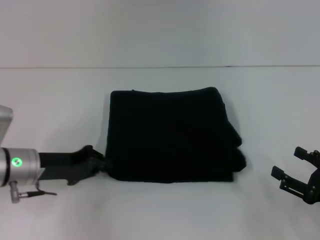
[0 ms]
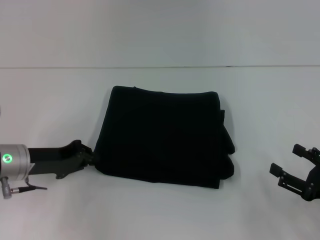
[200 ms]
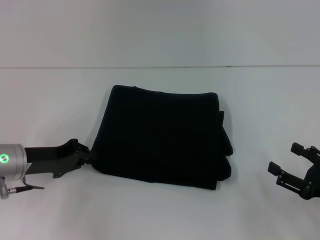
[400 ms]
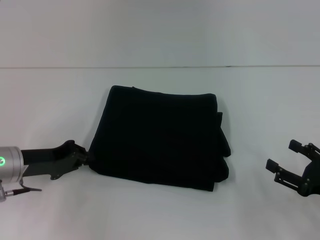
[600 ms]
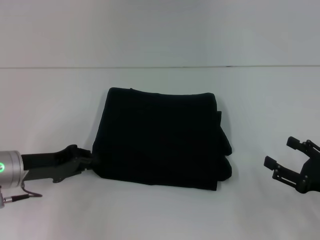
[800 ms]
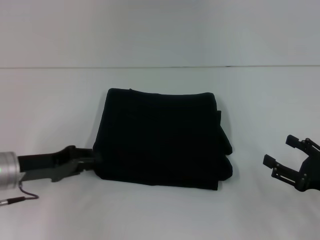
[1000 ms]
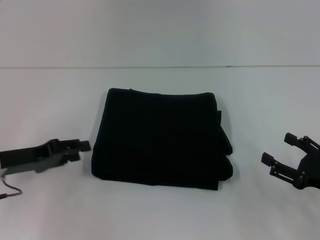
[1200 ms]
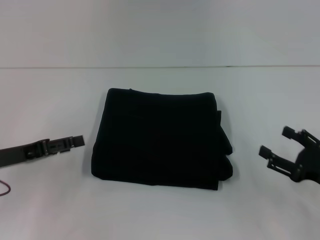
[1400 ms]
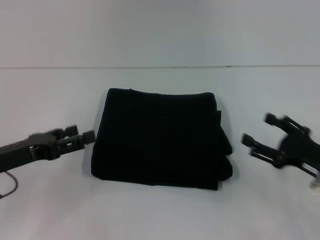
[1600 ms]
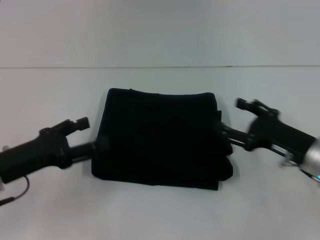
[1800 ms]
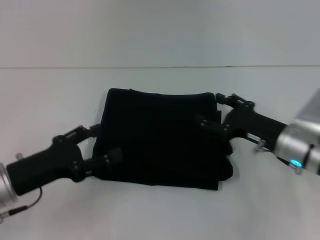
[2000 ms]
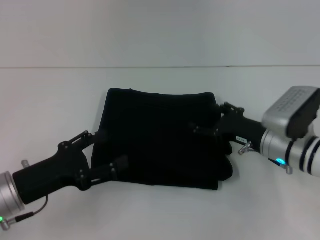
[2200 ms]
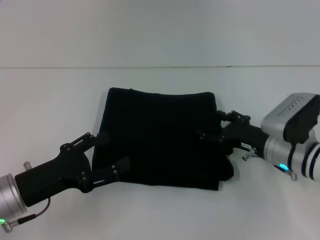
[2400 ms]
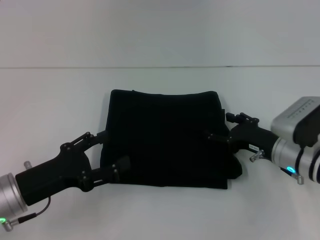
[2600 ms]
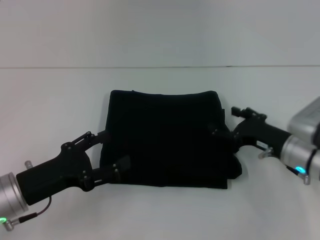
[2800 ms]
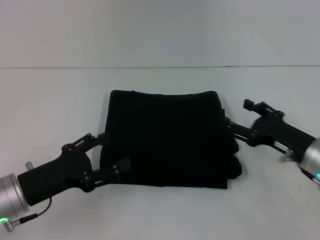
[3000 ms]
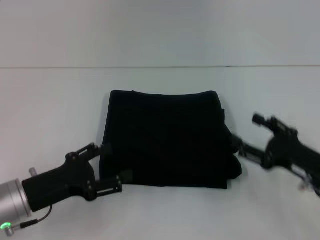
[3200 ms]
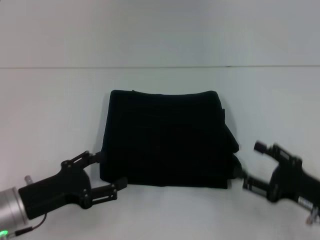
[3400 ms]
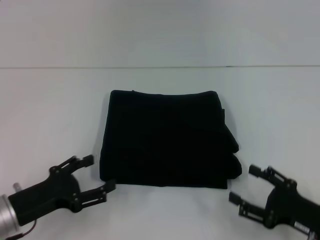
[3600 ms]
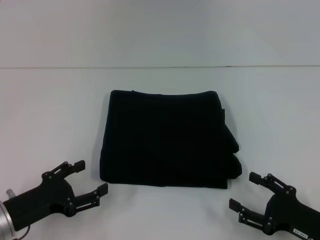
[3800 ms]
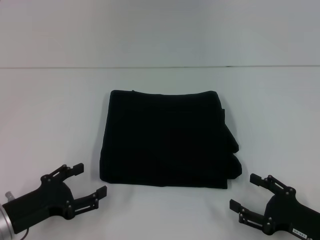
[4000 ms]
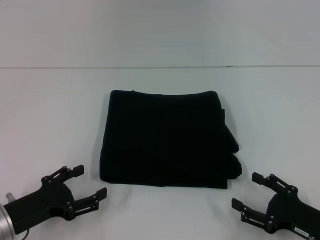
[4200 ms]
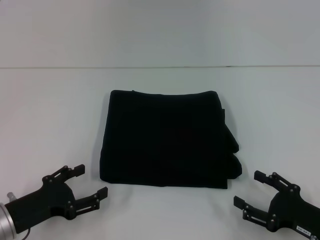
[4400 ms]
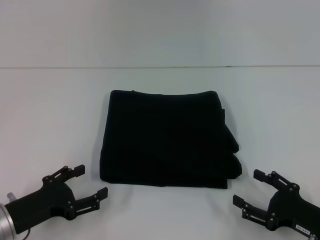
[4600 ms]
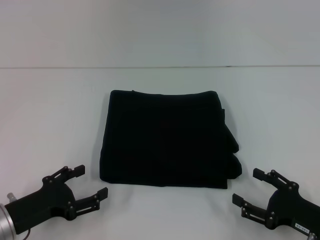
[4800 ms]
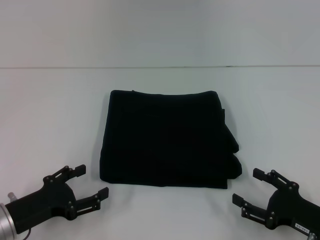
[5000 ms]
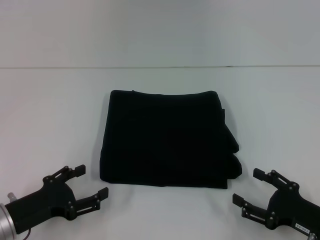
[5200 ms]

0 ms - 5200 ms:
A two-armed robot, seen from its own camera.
0 ms - 1800 ms: The right gripper is displaced forward and to the left by some 10 cm; the left gripper travels backward by roughly 5 cm, and opens up.
1800 ms - 3400 ms: The right gripper moves backward, some 5 cm; the left gripper shifts by approximately 5 cm.
3400 ms - 5200 ms: The grippers make only small movements.

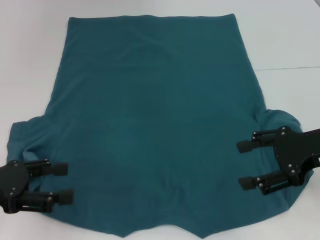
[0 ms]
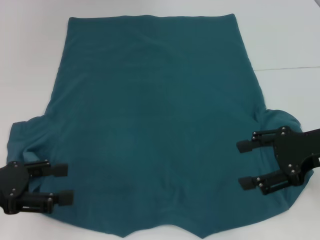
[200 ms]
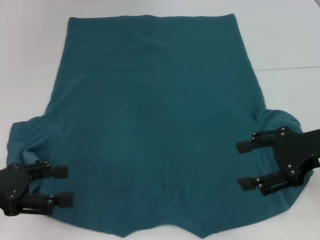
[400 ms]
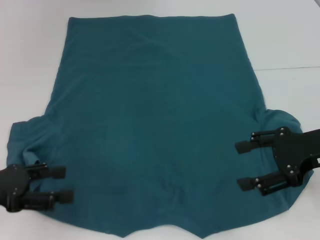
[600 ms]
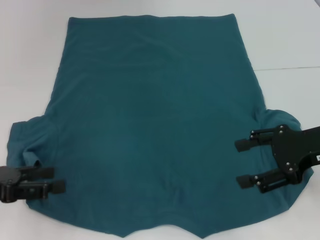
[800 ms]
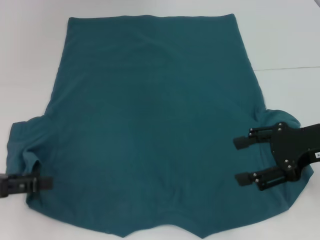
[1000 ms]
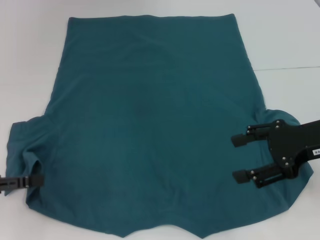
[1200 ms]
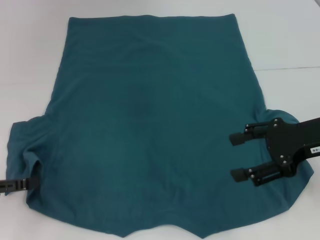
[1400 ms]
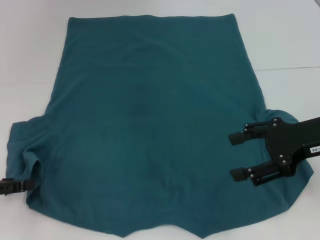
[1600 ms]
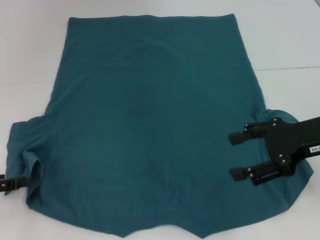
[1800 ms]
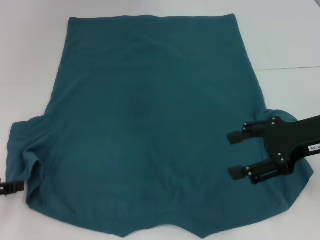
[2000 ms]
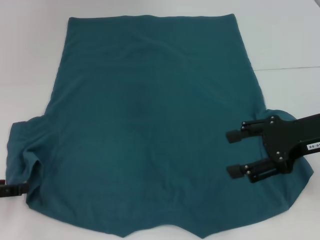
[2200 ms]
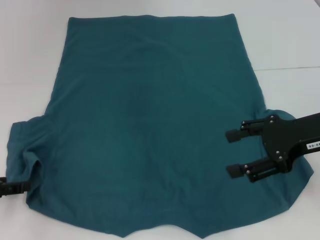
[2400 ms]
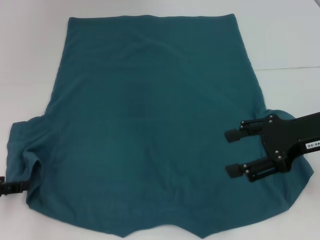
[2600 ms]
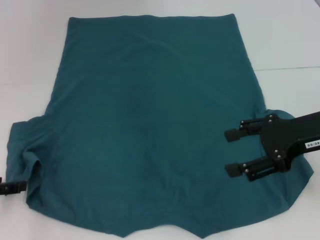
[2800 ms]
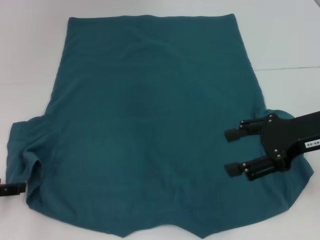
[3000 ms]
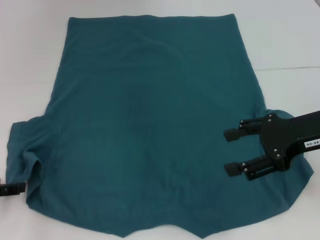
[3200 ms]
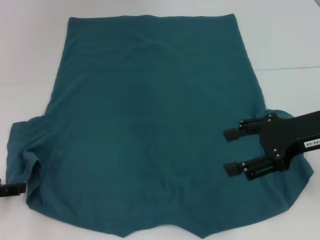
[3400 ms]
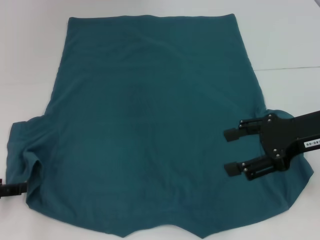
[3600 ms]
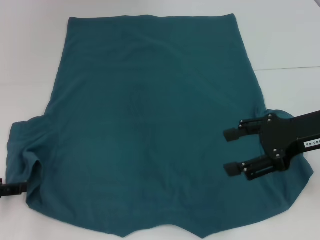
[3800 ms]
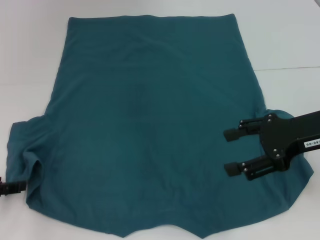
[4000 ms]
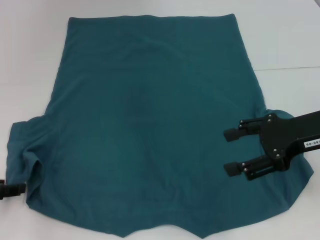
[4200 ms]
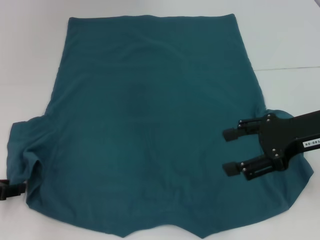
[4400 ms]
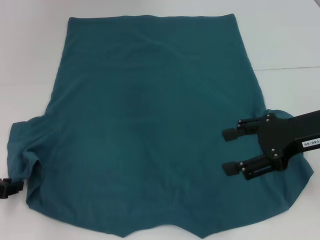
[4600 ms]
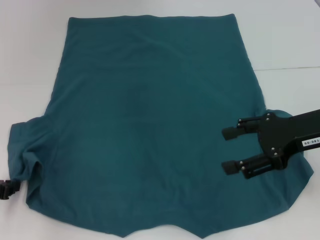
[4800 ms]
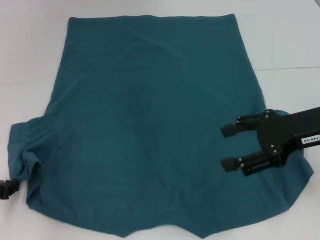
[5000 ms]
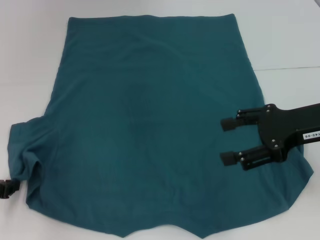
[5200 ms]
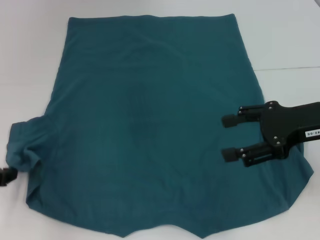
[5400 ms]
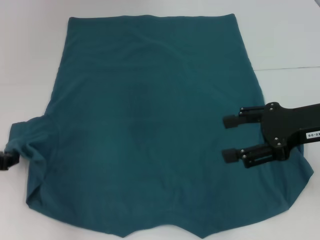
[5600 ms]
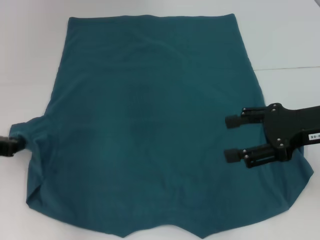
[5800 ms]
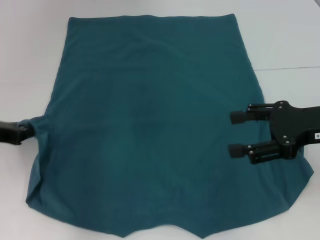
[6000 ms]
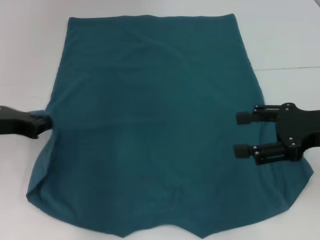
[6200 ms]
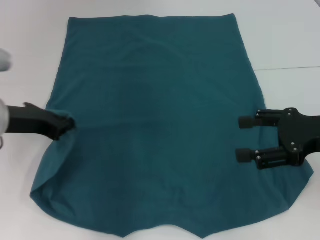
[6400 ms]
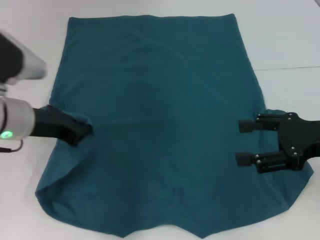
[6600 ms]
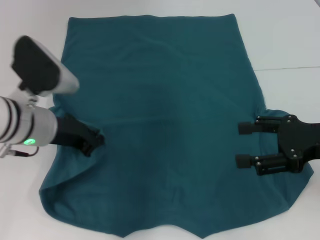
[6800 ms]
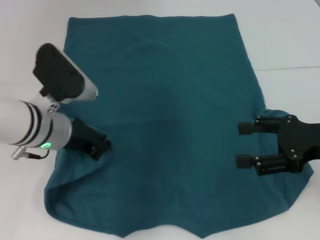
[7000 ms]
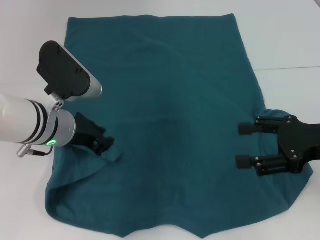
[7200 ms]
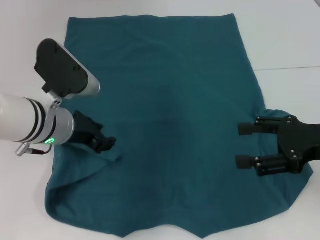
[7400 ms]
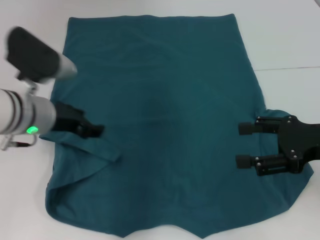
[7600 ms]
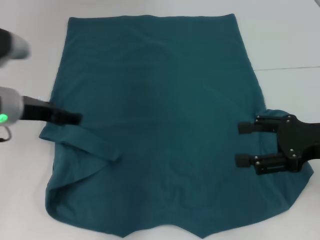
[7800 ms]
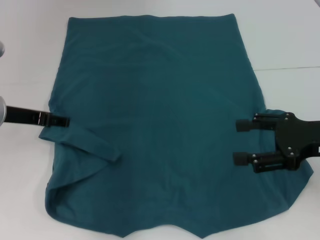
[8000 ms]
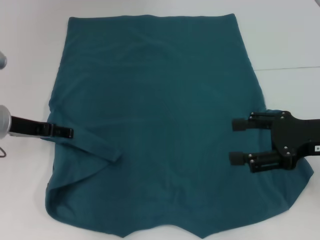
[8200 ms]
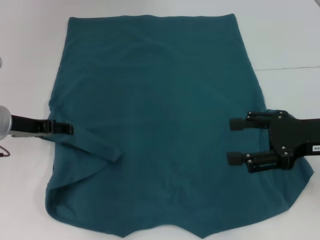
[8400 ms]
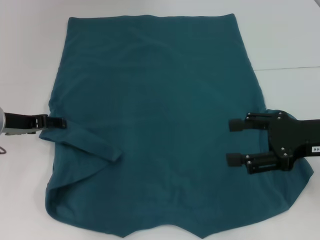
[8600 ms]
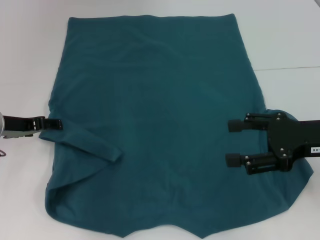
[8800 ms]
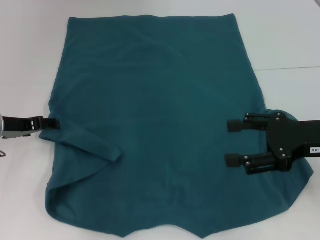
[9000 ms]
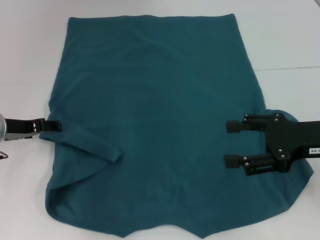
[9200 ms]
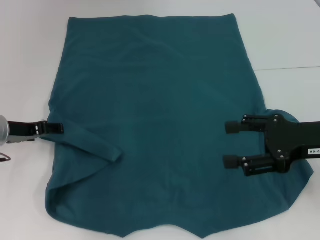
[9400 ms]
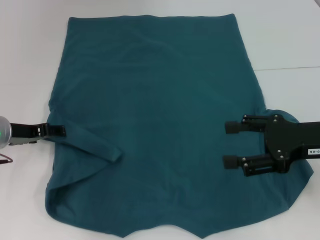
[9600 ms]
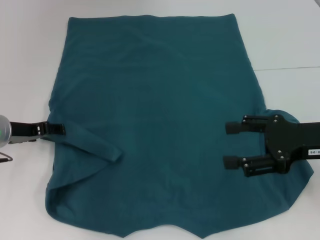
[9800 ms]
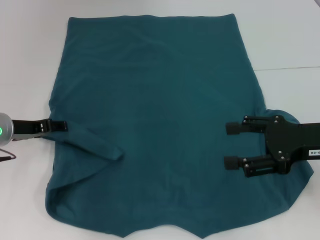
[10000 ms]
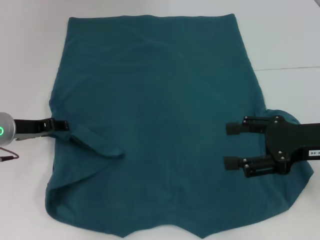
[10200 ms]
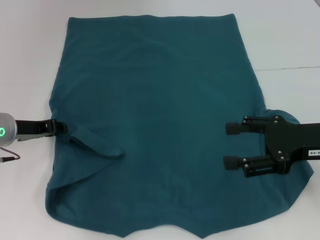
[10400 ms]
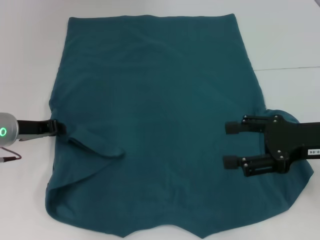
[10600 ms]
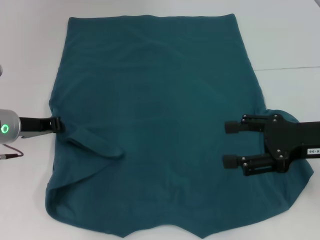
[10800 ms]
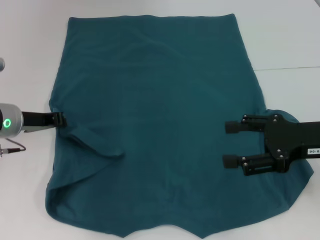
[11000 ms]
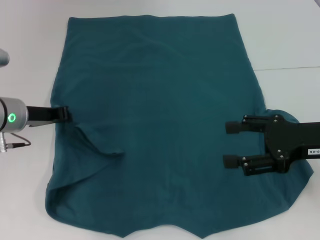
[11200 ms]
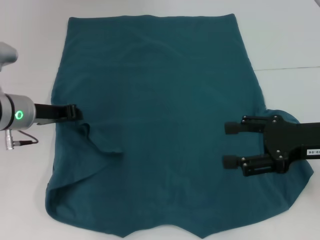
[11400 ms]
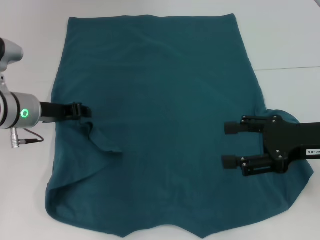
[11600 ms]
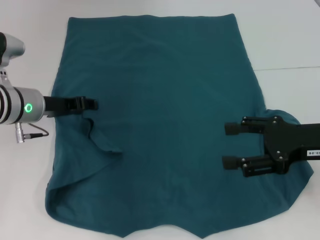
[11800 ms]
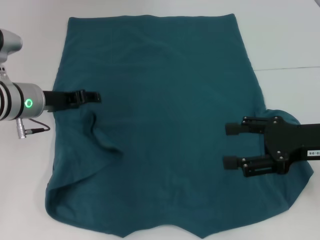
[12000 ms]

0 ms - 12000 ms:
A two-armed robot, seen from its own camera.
1600 ms - 3000 ms: The grippers stay close to where they were, moving slightly.
4400 ms - 6000 ms: The left gripper heads upward, covering some 5 cm, and closes up.
6000 ms - 7600 ms: The left gripper is displaced to the right by approximately 10 cm.
7600 ms - 9000 ms: The left gripper travels to the left by about 10 cm, and opens.
9000 ms - 10400 ms: The grippers move only a little.
10400 ms - 12000 ms: The left gripper ends up some 5 cm from where it was, and closes, then reopens.

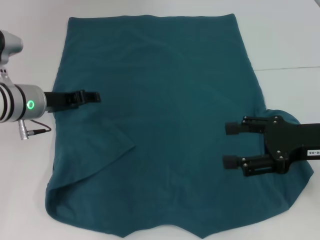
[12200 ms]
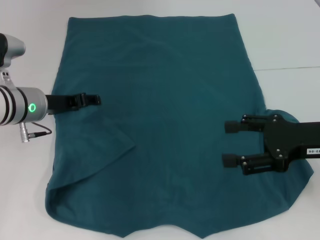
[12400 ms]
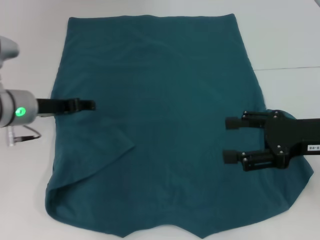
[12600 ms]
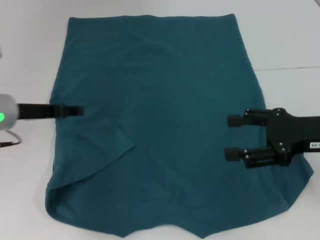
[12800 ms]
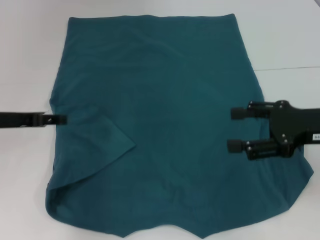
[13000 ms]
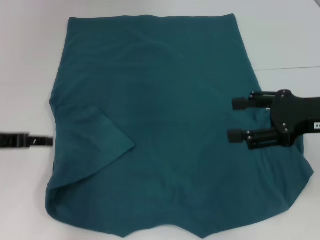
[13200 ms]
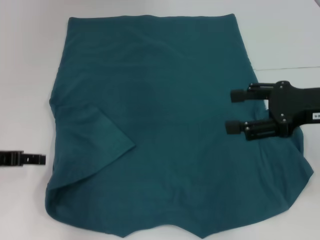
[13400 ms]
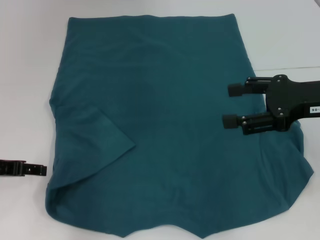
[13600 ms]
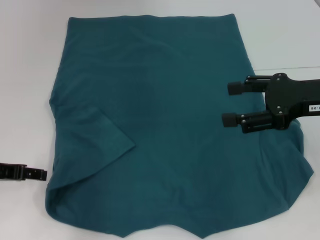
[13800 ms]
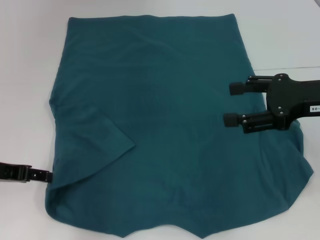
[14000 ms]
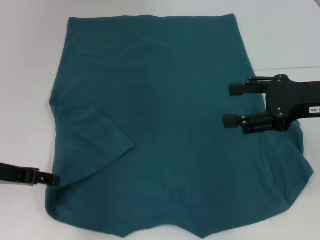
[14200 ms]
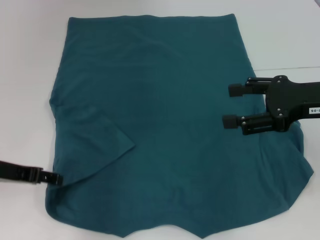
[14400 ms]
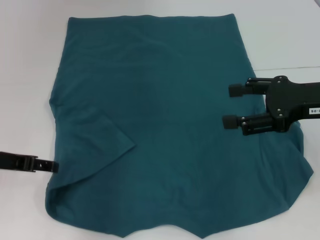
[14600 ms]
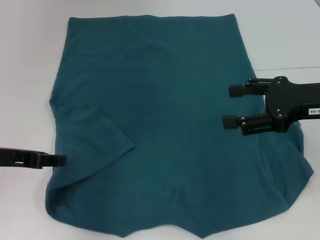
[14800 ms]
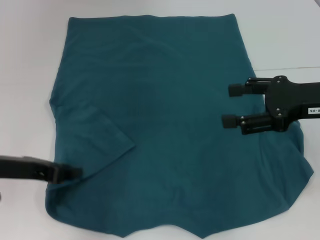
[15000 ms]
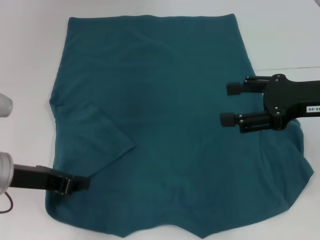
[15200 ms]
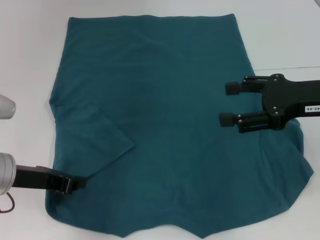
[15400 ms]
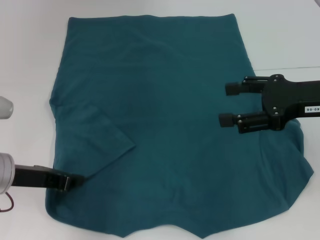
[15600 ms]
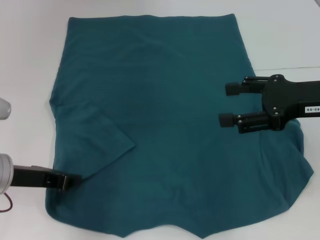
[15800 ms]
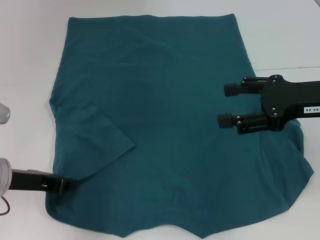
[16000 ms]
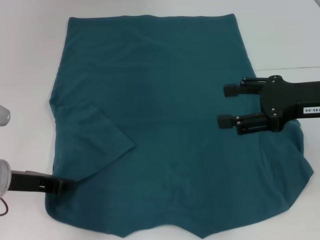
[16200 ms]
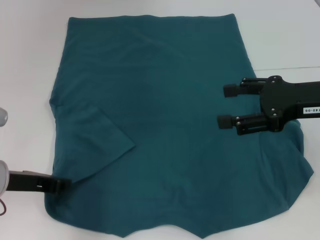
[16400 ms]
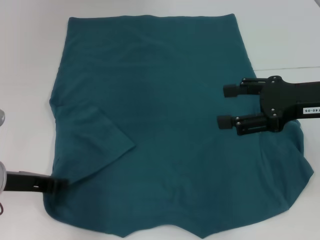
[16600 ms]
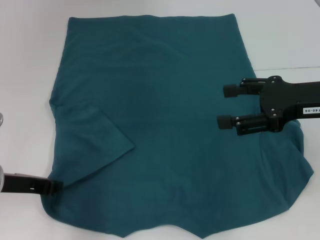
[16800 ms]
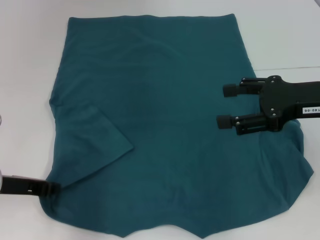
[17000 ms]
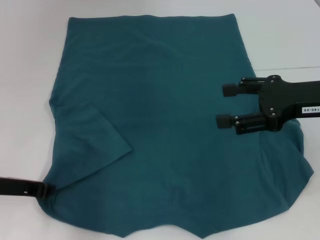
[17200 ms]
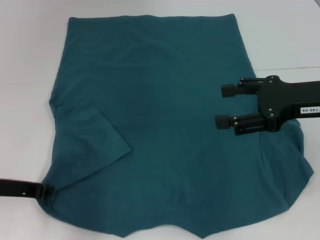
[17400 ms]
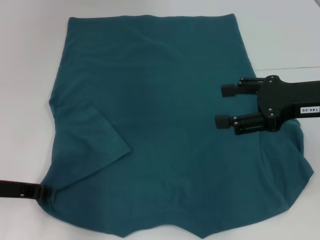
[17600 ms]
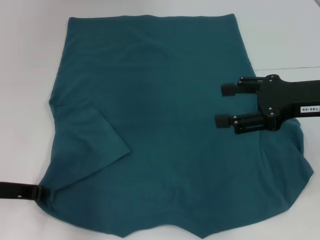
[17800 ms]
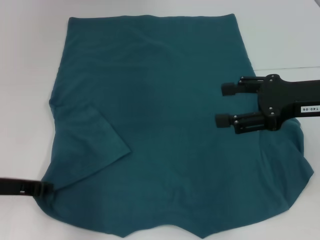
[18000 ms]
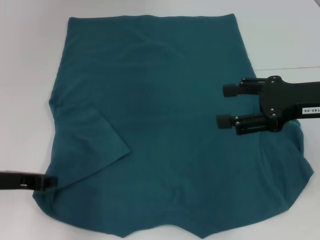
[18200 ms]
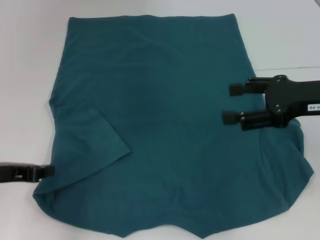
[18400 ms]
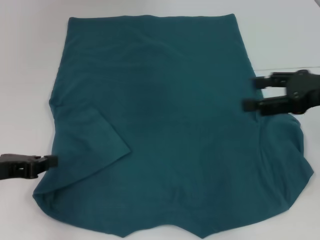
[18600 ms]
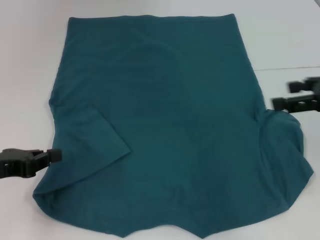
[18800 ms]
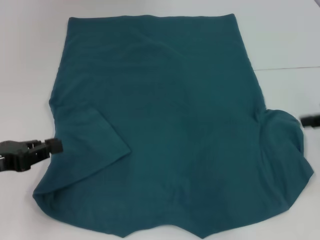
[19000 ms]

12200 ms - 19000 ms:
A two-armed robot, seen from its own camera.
12200 ms - 13600 ms: The left gripper shifts roughly 15 cm backward and to the left. The right gripper moves roughly 5 cm.
13600 ms - 15000 ms: The left gripper ends up approximately 5 cm from where it was.
15000 ms - 16200 ms: The left gripper closes up.
16200 ms - 17600 ms: The grippers move only a little.
17600 ms - 19000 ms: The left gripper moves some 5 cm, while the right gripper is displaced to the right by some 10 cm.
